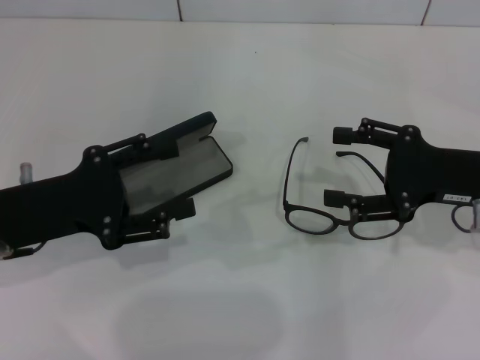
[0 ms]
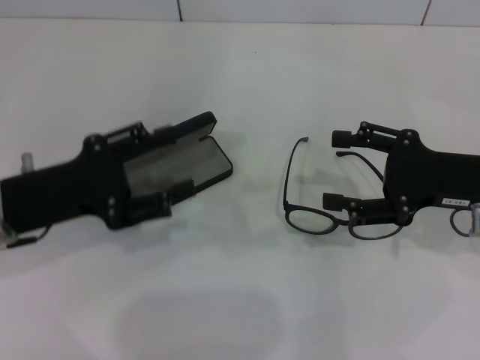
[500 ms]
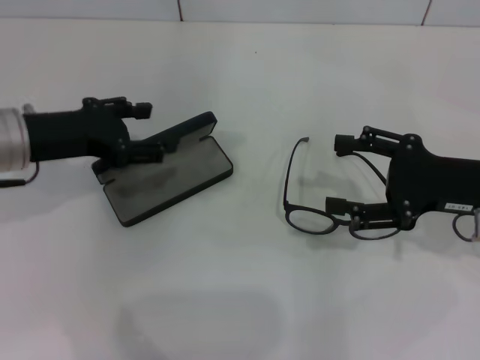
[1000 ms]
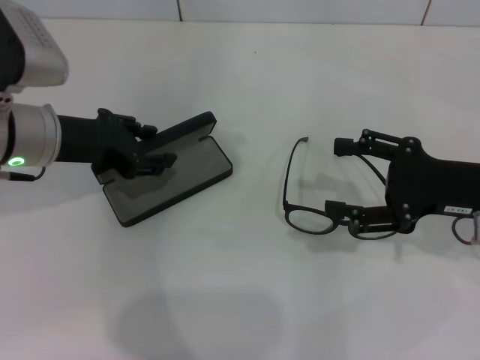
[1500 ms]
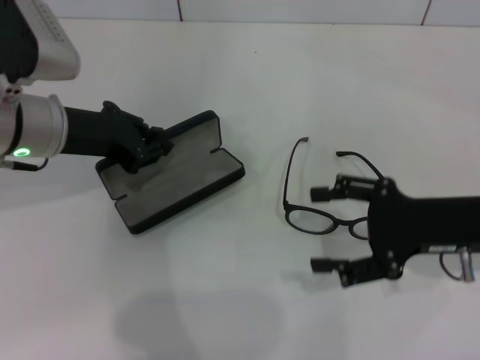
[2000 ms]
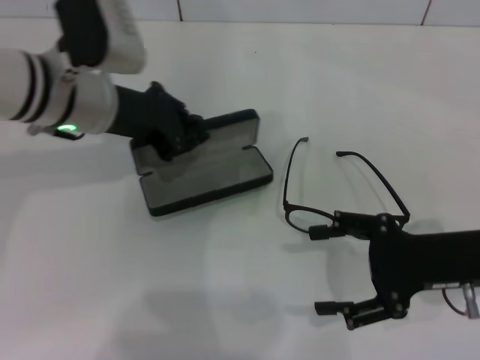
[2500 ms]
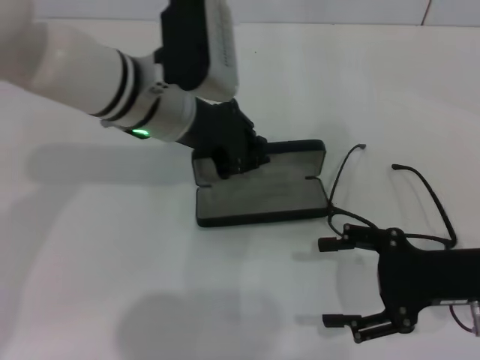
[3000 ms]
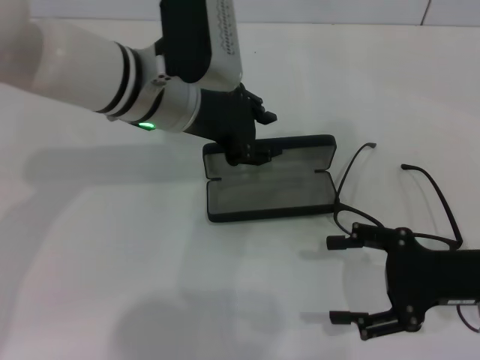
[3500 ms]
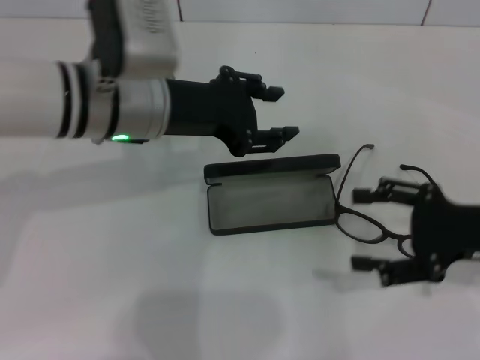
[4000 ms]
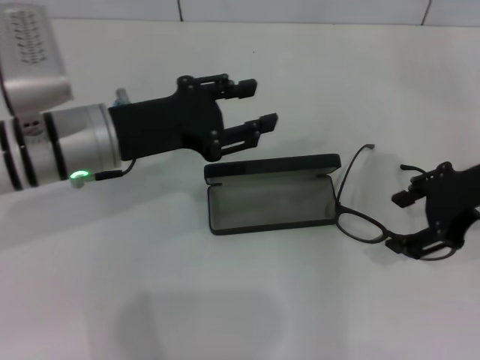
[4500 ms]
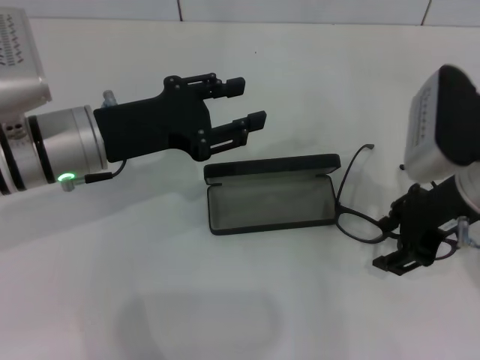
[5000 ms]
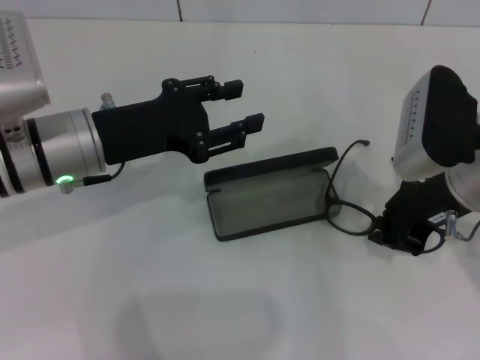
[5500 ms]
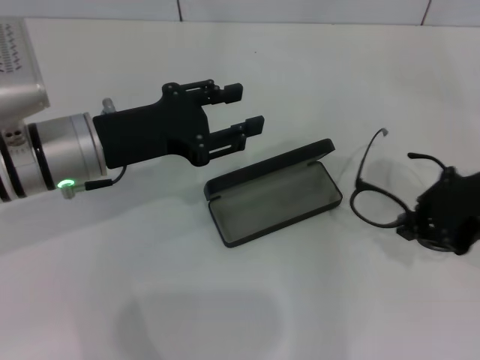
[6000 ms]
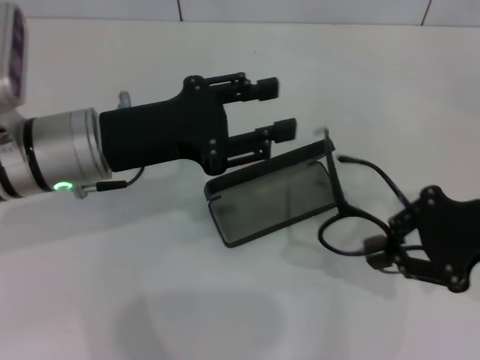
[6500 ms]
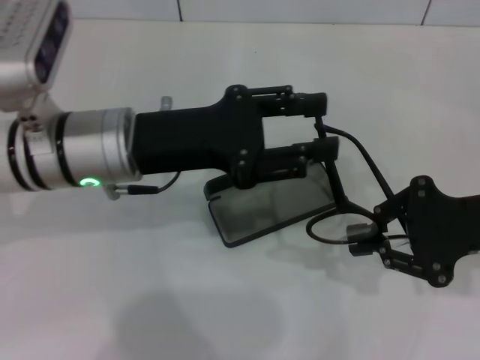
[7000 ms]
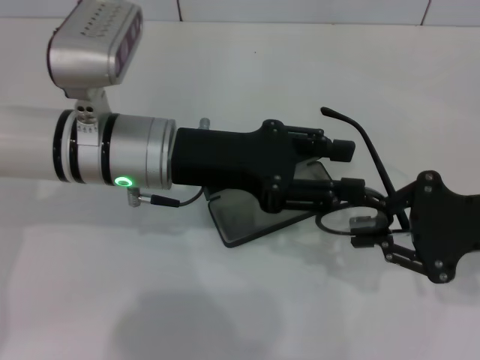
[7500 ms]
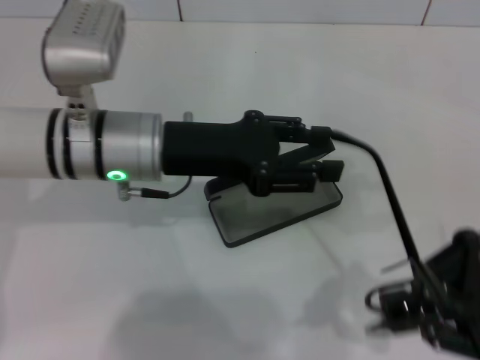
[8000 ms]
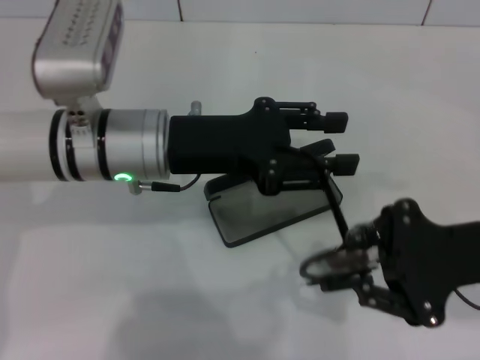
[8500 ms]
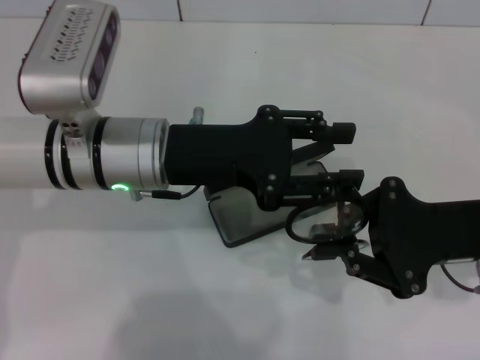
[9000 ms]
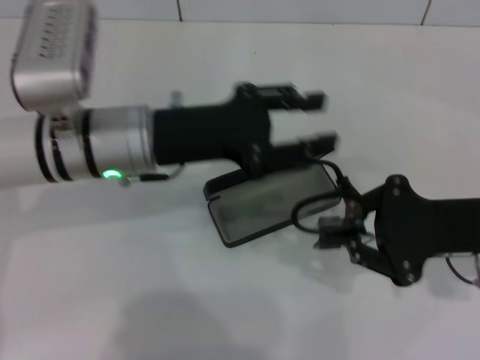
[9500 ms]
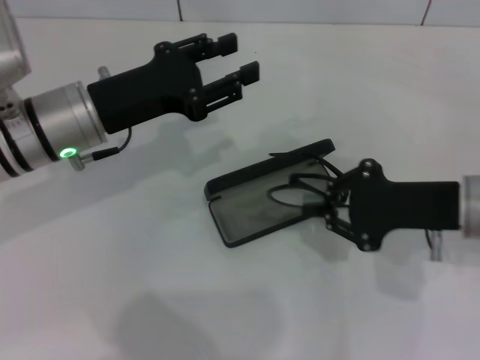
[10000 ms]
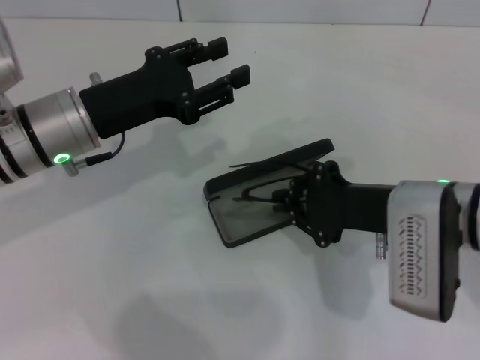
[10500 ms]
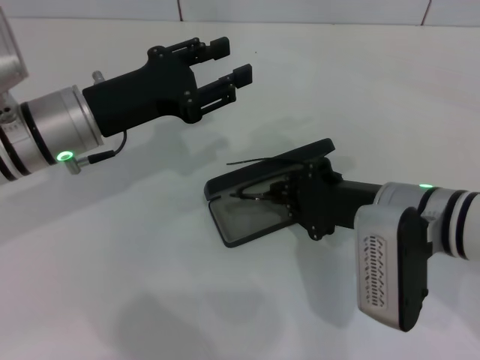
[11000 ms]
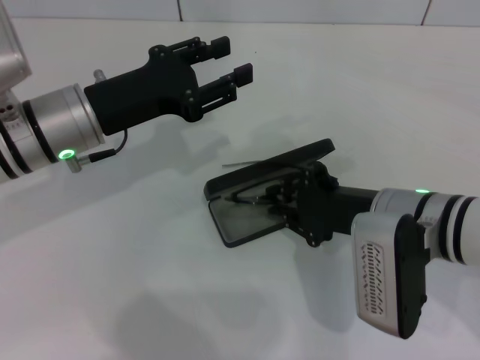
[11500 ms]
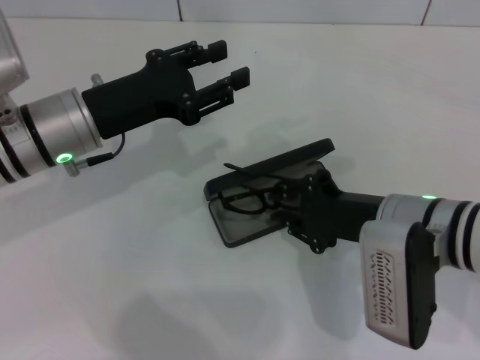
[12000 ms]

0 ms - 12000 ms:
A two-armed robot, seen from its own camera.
Step, 0 ms - 1500 ms: Grab the glasses case with your left hand.
Step, 2000 ms - 3500 ms: Place the glasses case in the center of the table with your left hand.
Step, 4000 ms - 5000 ms: Grab the eyeglass frame with your right hand.
Step, 5500 ms - 9000 ms: Fold the frame with your left hand.
0 ms - 2000 ms: The left gripper shifts roughly 10 cm forward, and closes.
2000 ms - 4000 ms: The left gripper goes approximately 10 cm to the right, and opens up.
4000 ms - 6000 ms: The right gripper goes approximately 10 cm upward, and closes. Meanwhile the left gripper moves to the left, approximately 5 cm.
6000 ms - 8000 ms: The left gripper heads to the right, covering about 5 cm. The right gripper travels backward by approximately 10 cm.
8000 ms - 10000 ms: The right gripper moves forward and to the left, some 10 cm. The left gripper shifts about 5 cm to the left.
10000 ms - 12000 ms: The right gripper goes some 5 cm to the left.

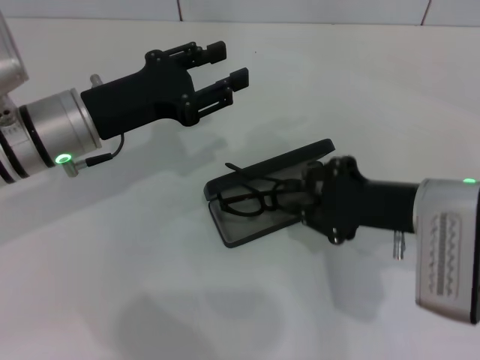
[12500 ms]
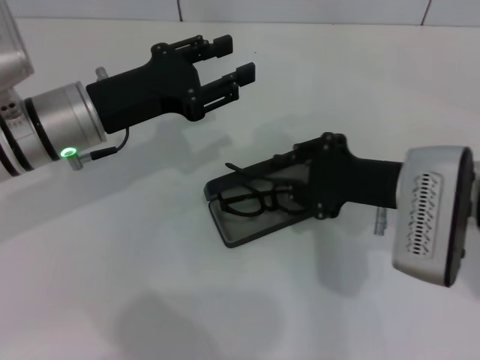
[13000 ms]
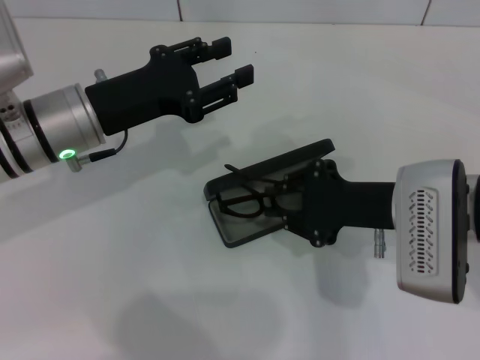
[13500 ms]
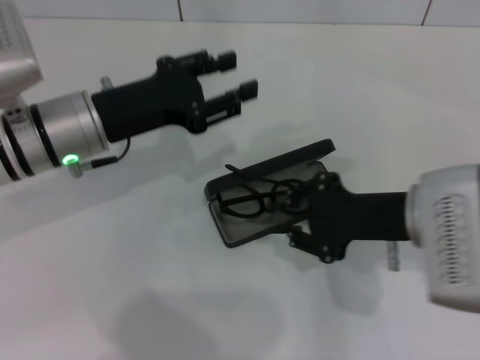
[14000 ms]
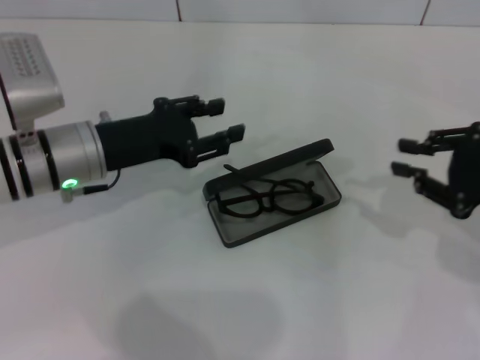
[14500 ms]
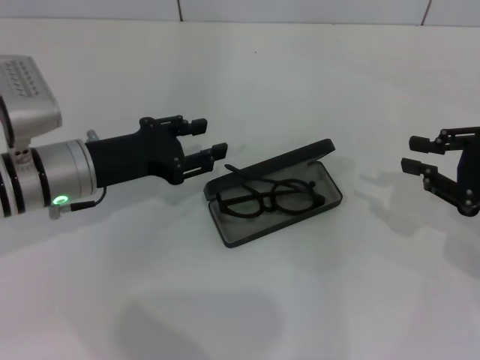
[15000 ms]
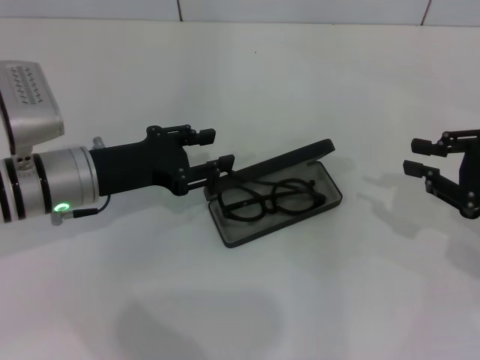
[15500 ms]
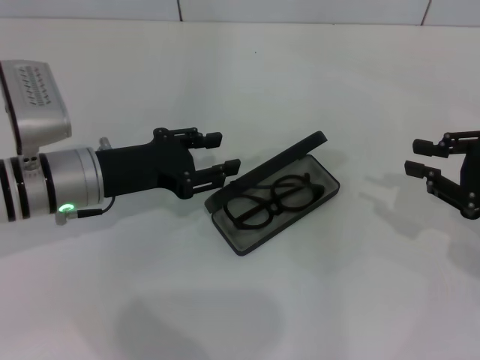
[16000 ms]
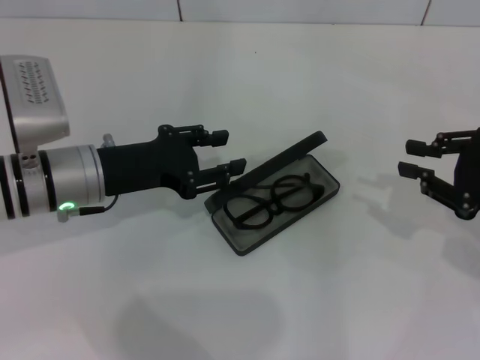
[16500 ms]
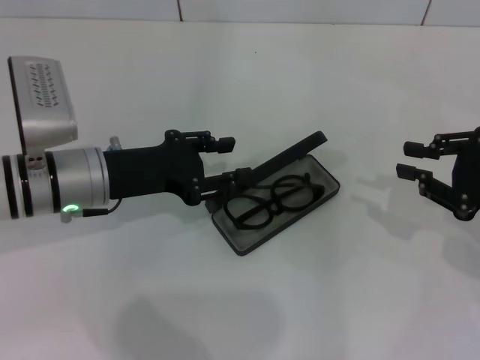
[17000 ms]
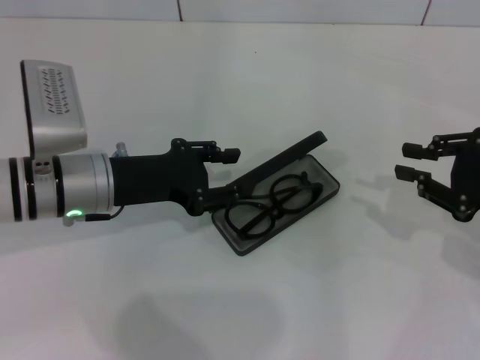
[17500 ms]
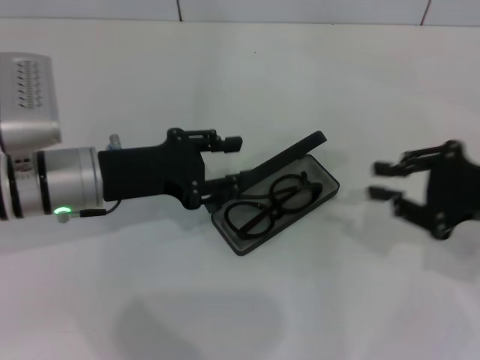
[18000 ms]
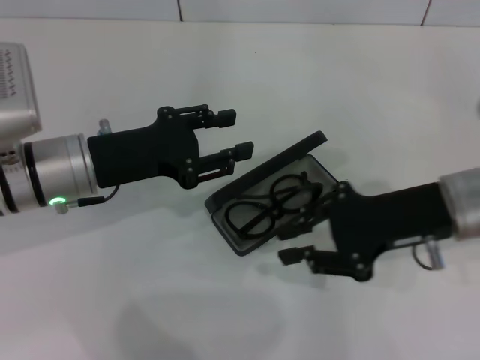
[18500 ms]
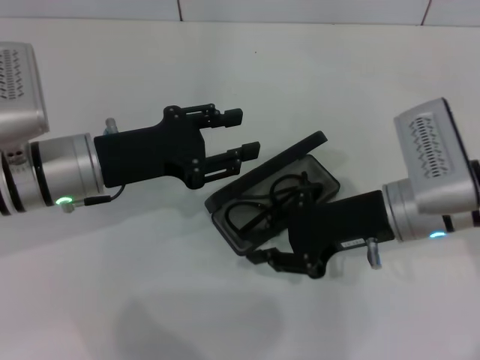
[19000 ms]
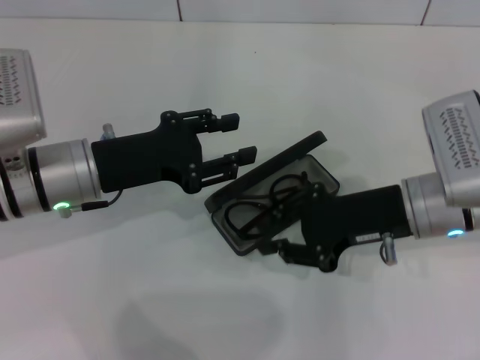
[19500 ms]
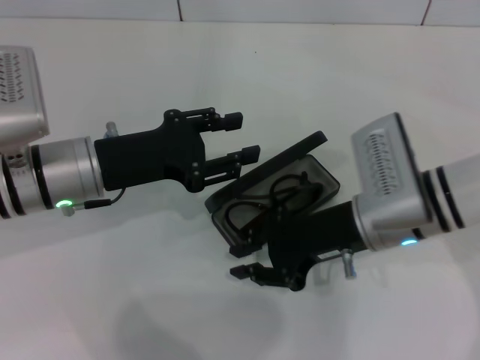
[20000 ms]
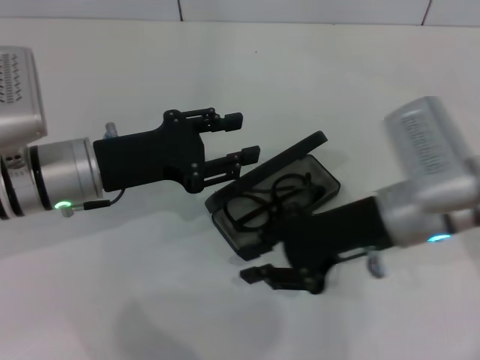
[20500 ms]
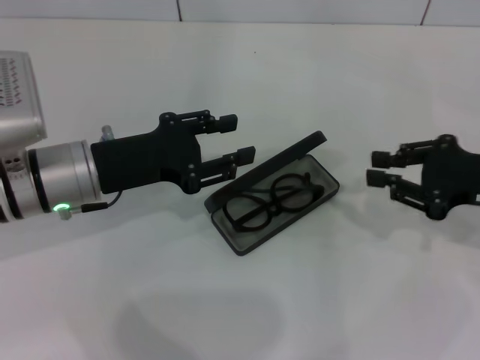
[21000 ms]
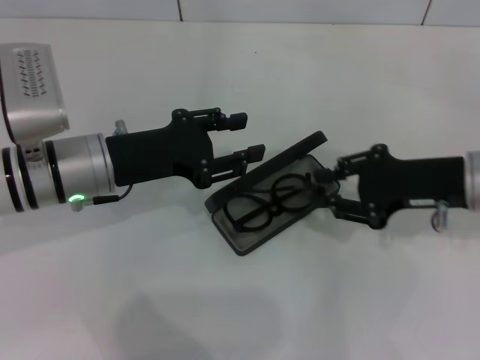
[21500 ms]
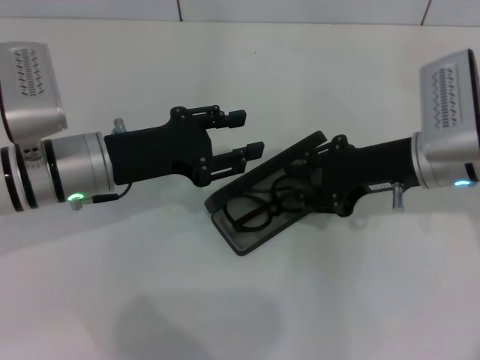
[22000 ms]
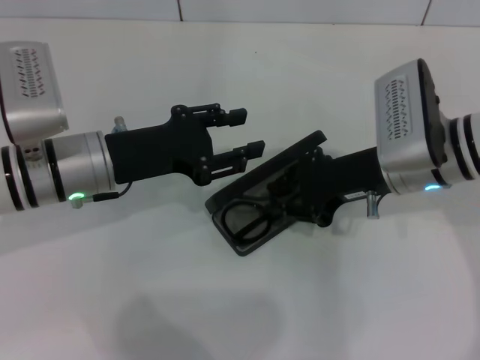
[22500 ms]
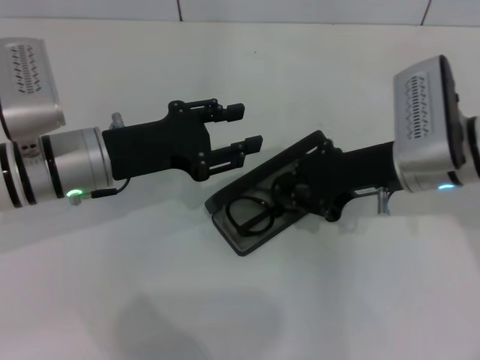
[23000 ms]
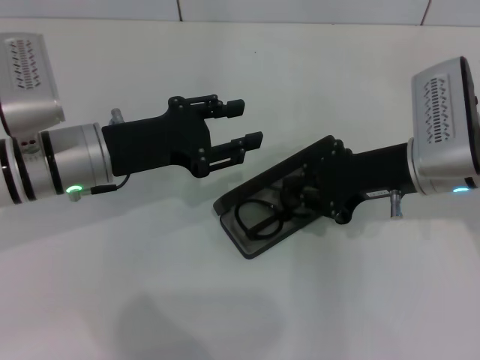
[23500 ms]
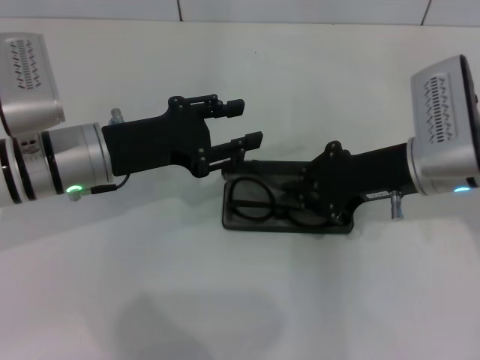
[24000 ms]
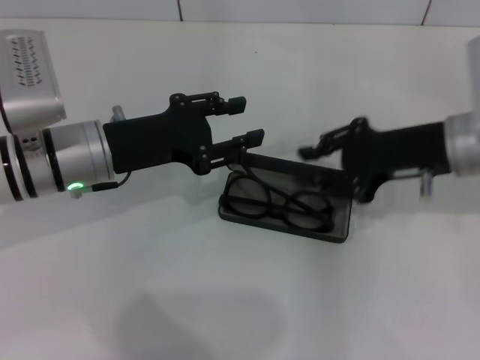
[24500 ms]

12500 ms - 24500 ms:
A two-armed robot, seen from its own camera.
12500 ms - 14500 ms: The right gripper shifts some 10 cm to the right.
14500 ms - 16500 ms: There are only small adjustments of the grippers.
16500 ms - 18500 ms: The right gripper heads to the left, covering some 10 cm.
18500 ms - 20500 ms: The right gripper moves to the left, roughly 5 cm.
20500 ms - 22500 ms: The right gripper travels to the right and back again, about 15 cm each way.
22500 ms - 24500 ms: The right gripper changes place by roughly 5 cm.

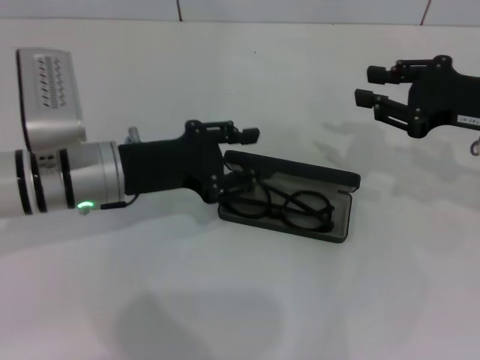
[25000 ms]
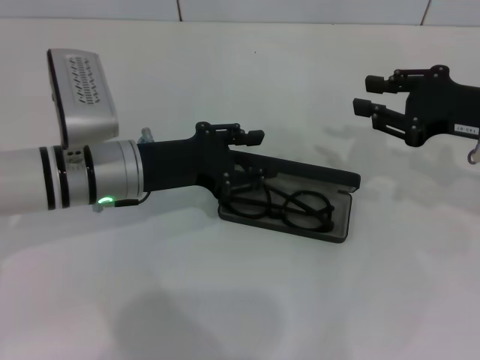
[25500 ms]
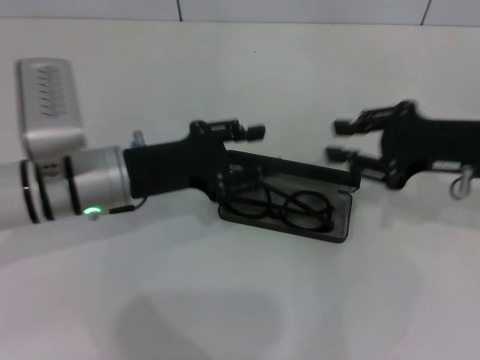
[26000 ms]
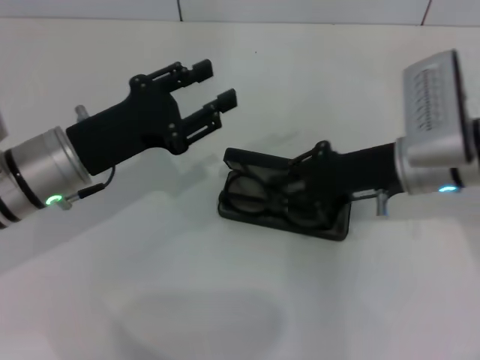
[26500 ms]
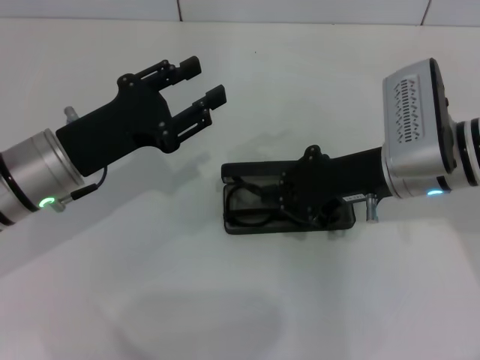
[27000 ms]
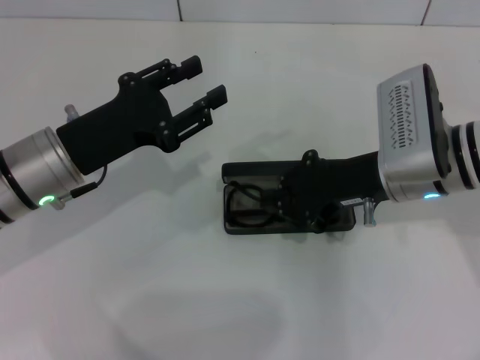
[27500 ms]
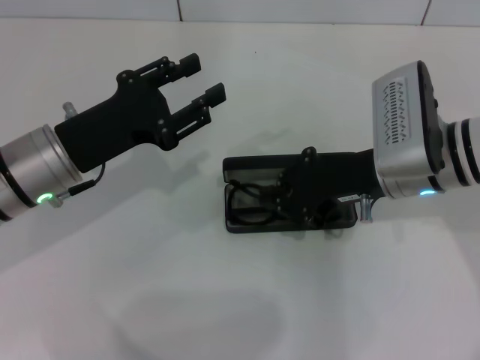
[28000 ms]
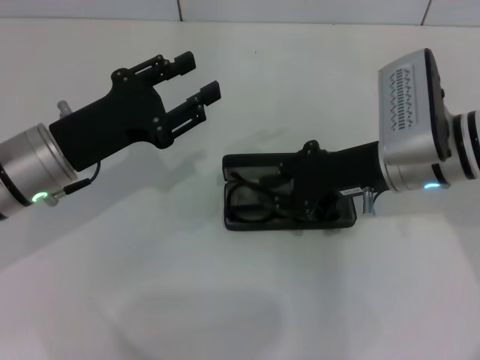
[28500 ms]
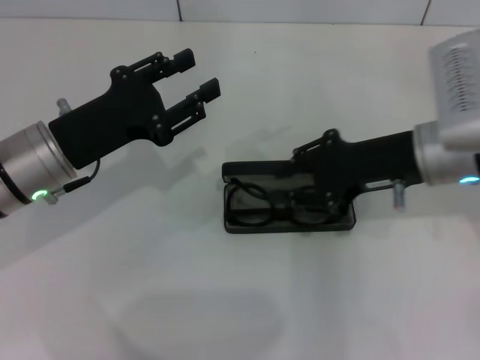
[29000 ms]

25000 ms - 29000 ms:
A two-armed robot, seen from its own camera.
25000 ms - 27000 ms: The right gripper travels to the left by roughly 10 cm.
27000 ms - 29000 ms: The grippers move only a little.
